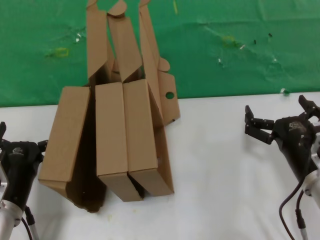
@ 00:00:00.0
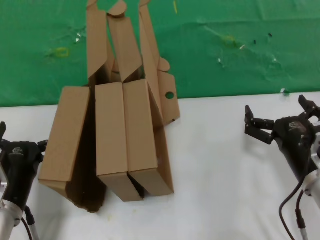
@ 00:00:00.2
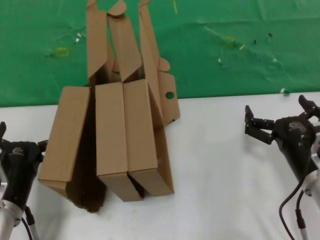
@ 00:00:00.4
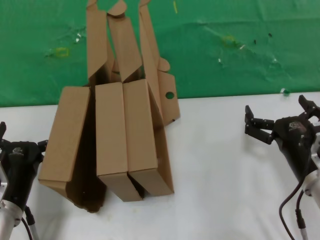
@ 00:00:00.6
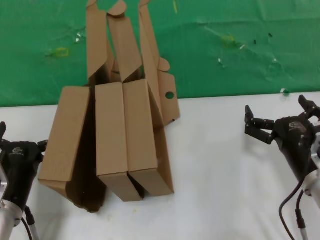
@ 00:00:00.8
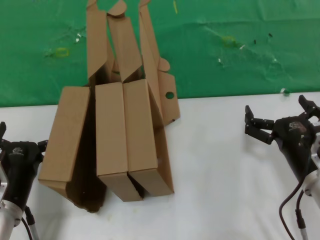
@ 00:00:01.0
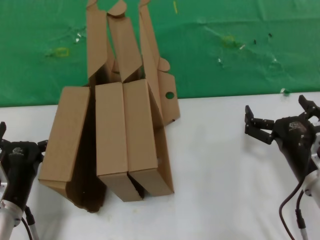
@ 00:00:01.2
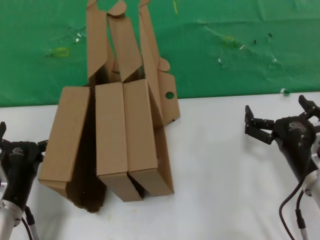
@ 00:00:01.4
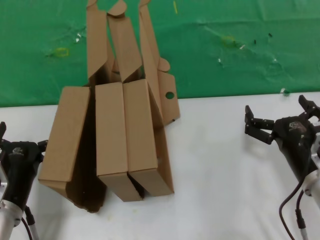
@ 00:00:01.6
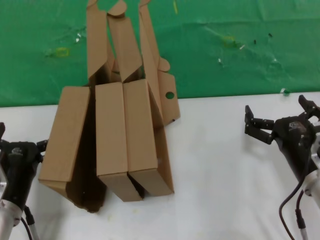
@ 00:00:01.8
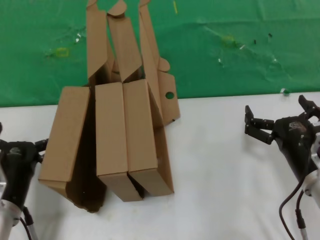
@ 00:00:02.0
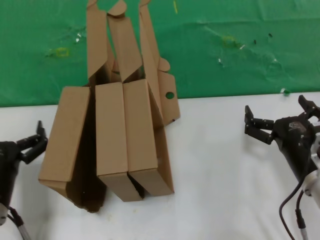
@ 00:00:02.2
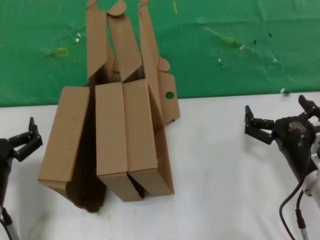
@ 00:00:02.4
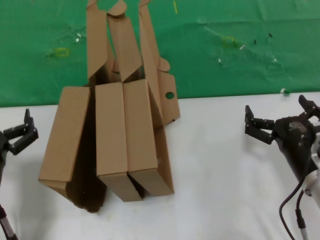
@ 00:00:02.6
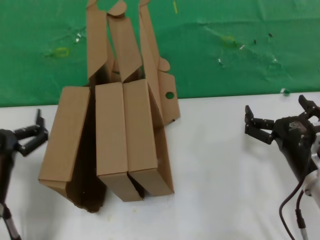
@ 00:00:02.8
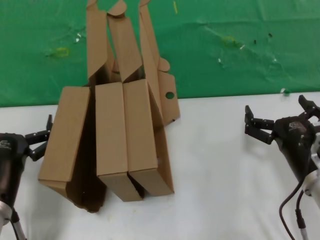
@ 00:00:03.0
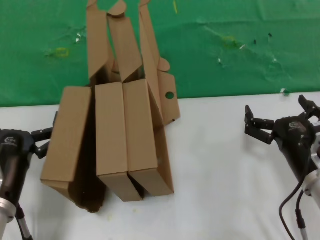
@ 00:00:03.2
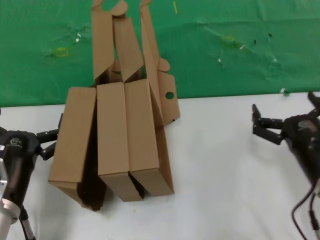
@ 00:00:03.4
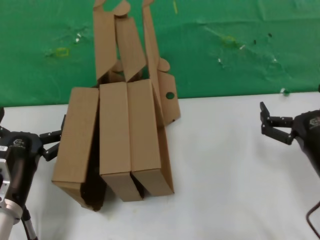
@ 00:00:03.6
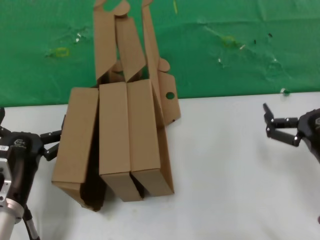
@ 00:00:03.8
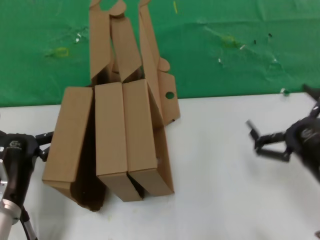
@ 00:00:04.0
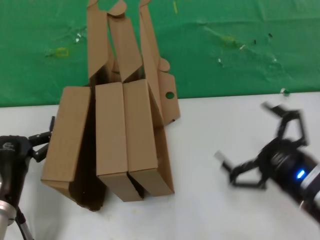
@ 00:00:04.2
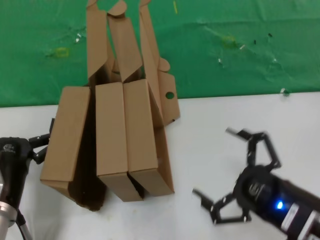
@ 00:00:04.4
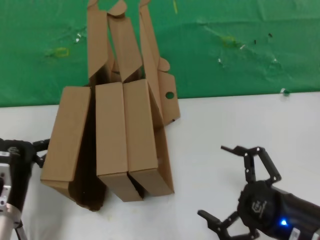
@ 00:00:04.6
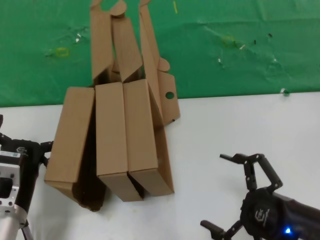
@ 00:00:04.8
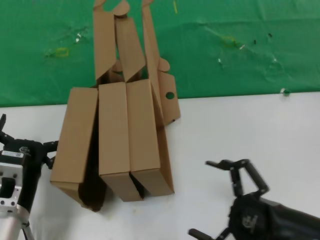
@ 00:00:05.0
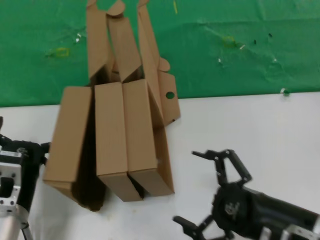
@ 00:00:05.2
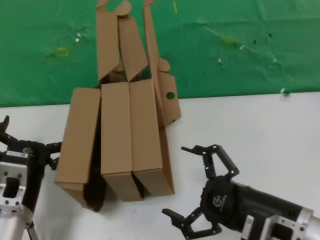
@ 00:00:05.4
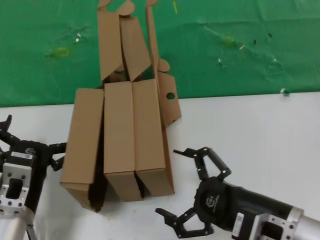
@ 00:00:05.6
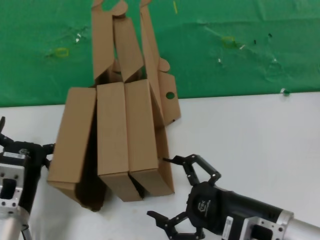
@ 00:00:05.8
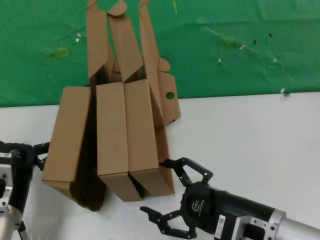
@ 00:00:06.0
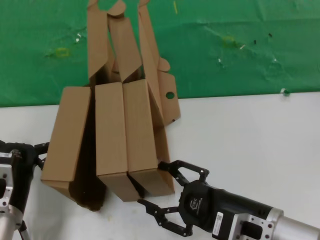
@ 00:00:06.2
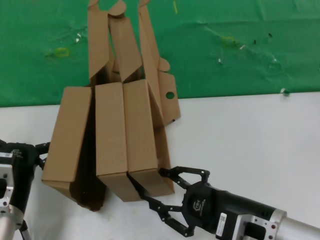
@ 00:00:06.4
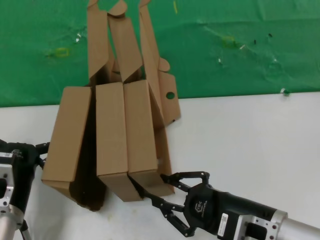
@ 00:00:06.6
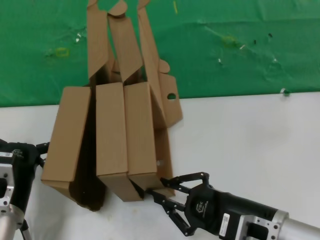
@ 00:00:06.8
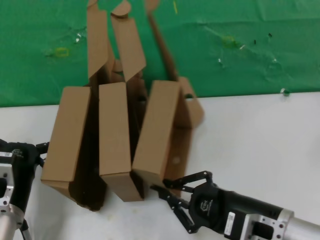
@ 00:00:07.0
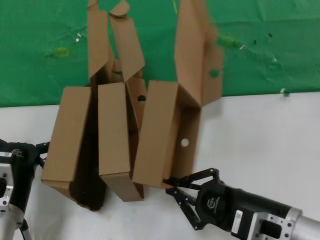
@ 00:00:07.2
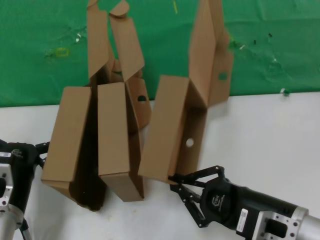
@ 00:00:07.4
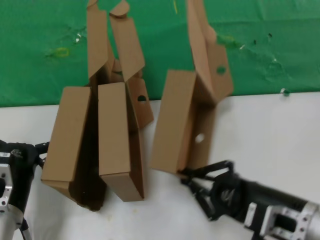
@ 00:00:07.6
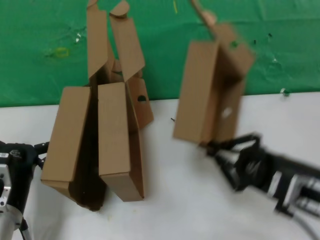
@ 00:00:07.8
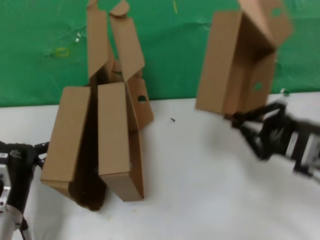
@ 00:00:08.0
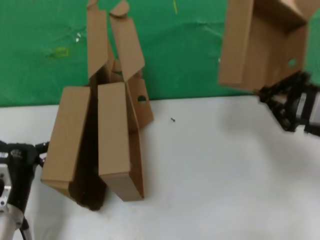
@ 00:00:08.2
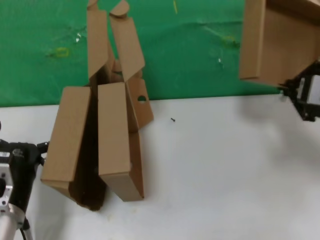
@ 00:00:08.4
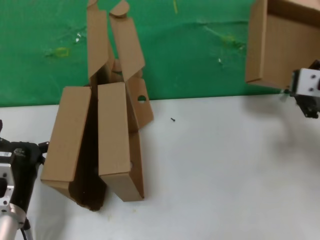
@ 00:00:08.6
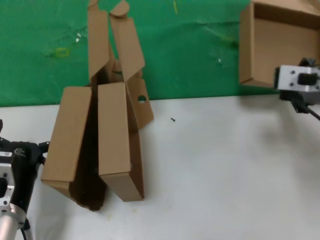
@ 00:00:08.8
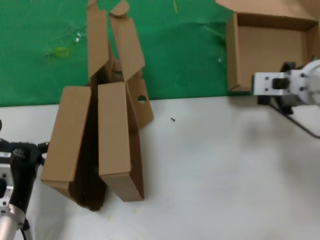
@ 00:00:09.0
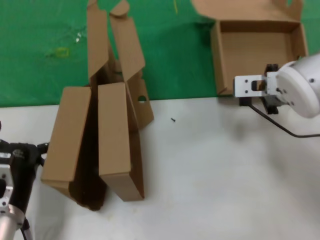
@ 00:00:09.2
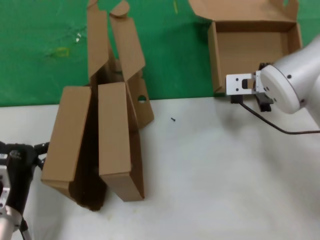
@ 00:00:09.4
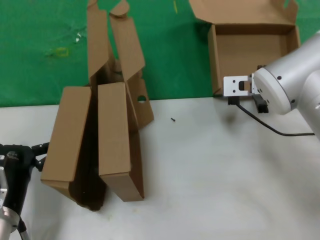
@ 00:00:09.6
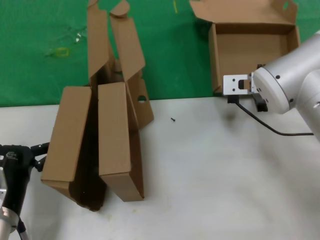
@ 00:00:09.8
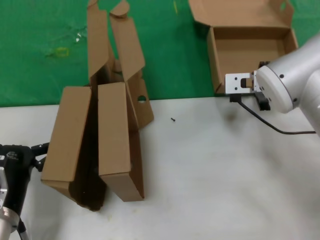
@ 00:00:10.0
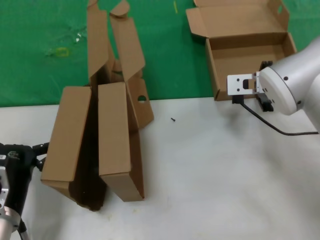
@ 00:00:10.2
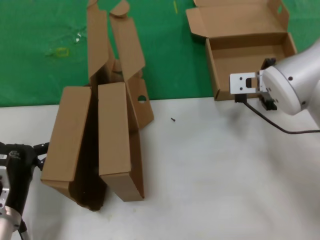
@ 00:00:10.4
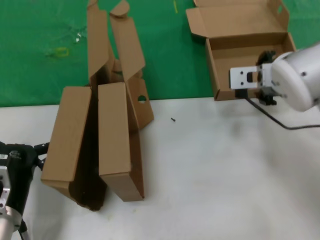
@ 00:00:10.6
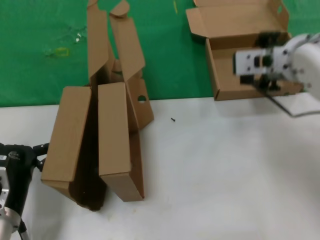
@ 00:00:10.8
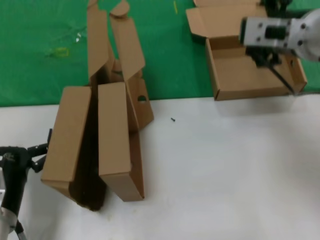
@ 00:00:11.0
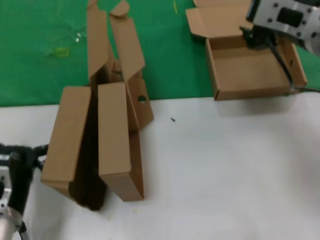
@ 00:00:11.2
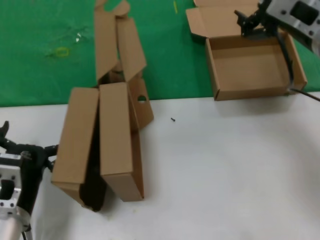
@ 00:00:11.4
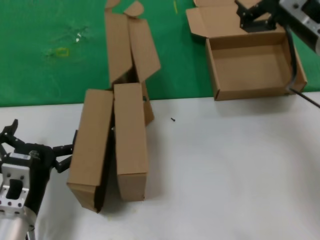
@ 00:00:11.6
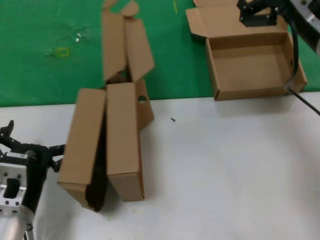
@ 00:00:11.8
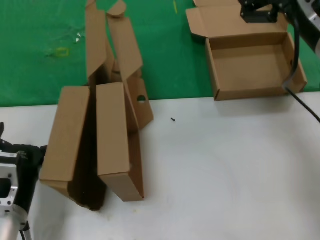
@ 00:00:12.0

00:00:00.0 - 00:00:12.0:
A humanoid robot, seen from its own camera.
Task of the whole recording: pick up the paper box and put it at the back.
Step, 00:00:00.0 - 00:00:07.0: Grasp the paper box.
Step, 00:00:07.2 - 00:00:10.2: Place the paper box on the table.
00:00:00.0 - 00:00:01.6: The two hands keep their place.
00:00:01.6 - 00:00:03.0: The hands move only a little.
00:00:03.0 - 00:00:04.4: The right hand shifts approximately 10 cm backward.
00:00:04.4 - 00:00:06.0: The right hand moves to the left, roughly 5 cm.
00:00:07.6 - 00:00:09.0: The right hand travels forward and upward by some 25 cm.
00:00:09.0 - 00:00:10.4: The right hand moves forward, approximately 5 cm.
00:00:10.4 - 00:00:12.0: The right hand moves backward and upward, about 15 cm.

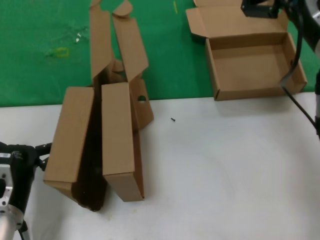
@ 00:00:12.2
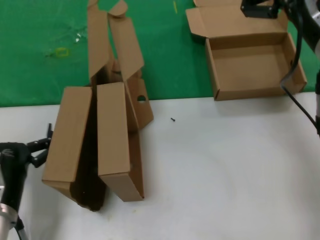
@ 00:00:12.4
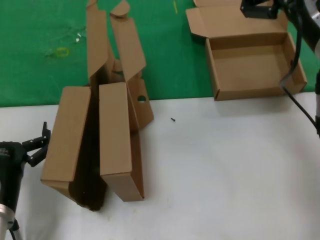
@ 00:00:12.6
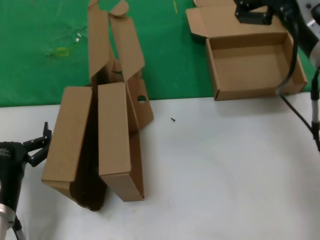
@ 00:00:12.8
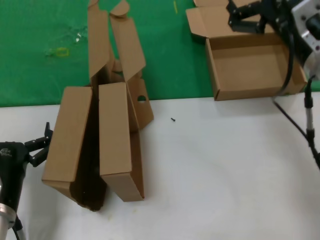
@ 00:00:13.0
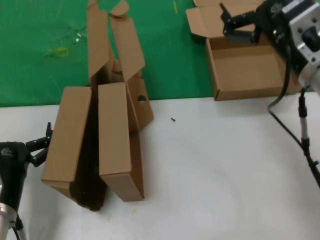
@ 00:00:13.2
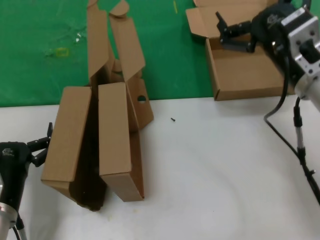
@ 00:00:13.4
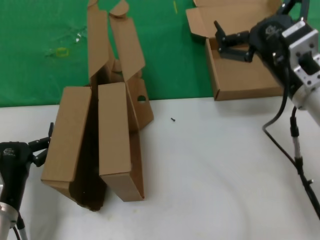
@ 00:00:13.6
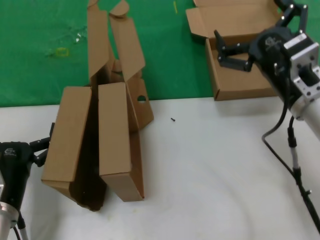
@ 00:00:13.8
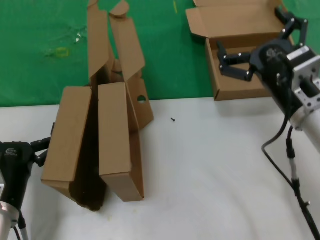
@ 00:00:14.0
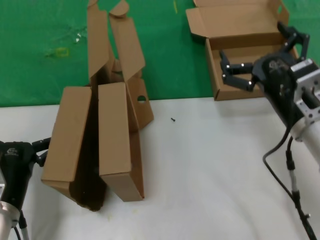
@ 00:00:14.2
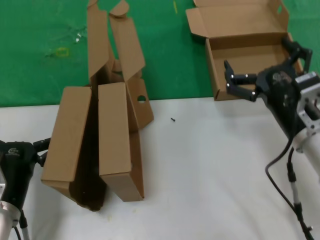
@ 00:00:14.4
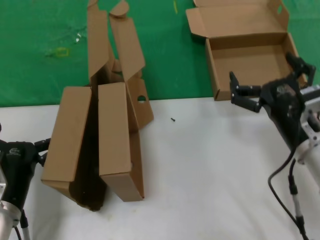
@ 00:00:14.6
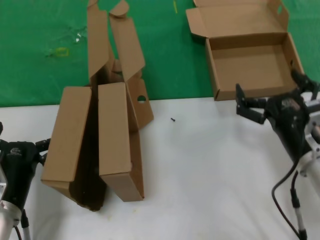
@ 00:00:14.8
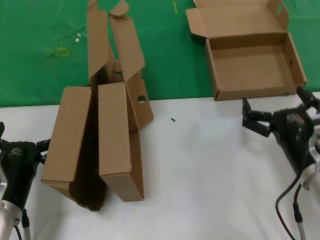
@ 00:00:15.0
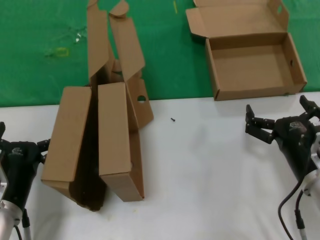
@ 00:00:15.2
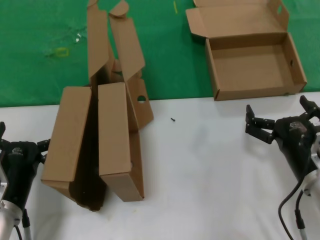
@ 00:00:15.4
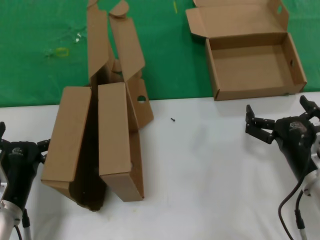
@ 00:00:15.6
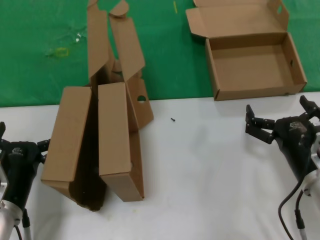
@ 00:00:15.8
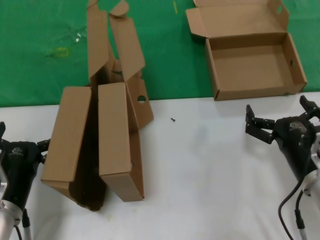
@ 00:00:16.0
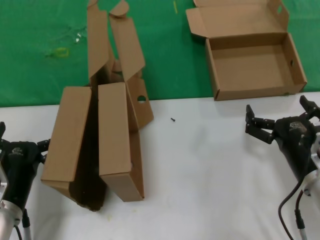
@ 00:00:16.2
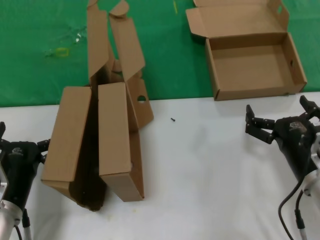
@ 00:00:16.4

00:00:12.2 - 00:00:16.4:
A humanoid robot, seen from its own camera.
Task of the whole recording: pick up the paper box and put it at the back.
00:00:12.2 - 00:00:13.6: The right hand is displaced downward by roughly 10 cm.
00:00:13.6 - 00:00:15.0: The right hand shifts approximately 15 cm downward.
00:00:15.0 - 00:00:16.4: There are only small adjustments of the hands.
